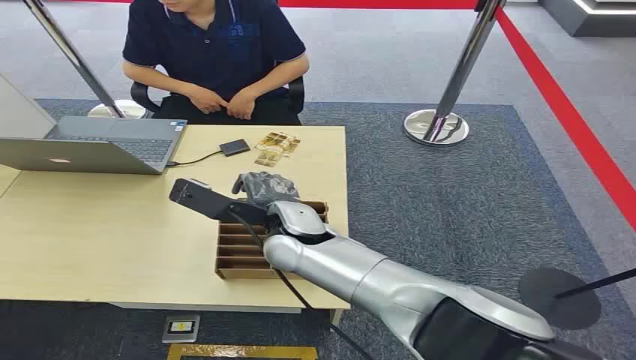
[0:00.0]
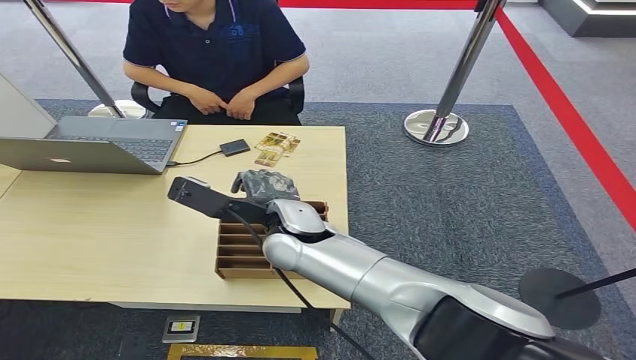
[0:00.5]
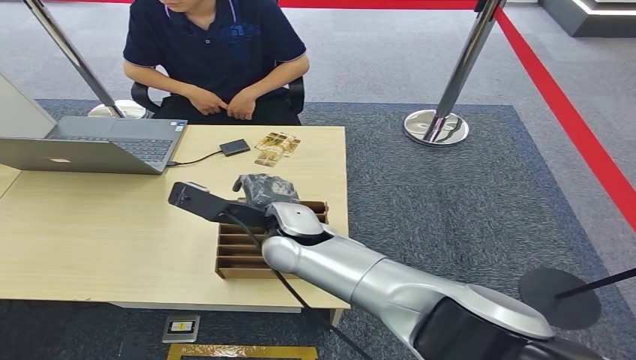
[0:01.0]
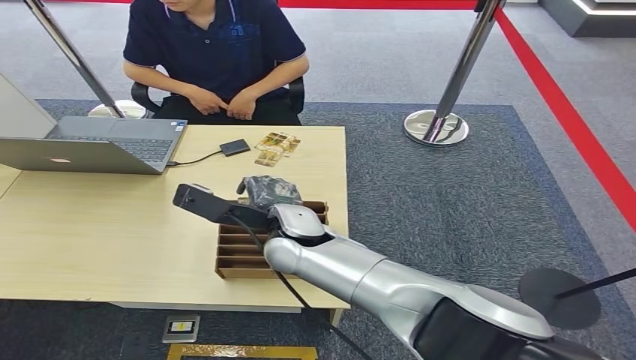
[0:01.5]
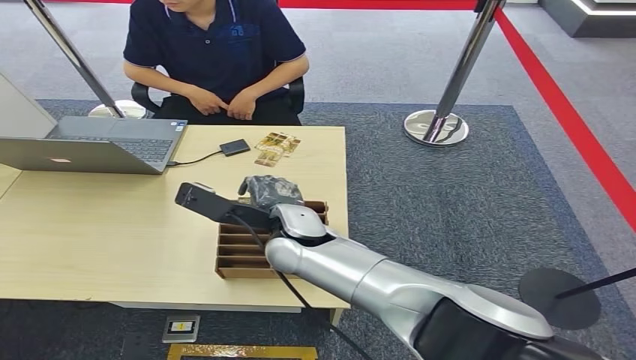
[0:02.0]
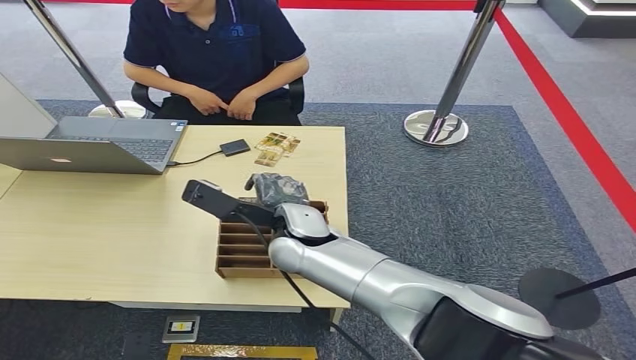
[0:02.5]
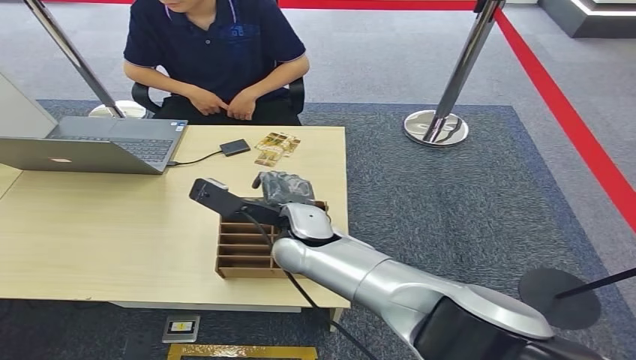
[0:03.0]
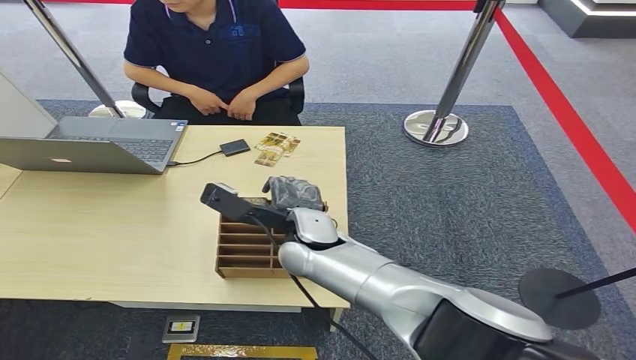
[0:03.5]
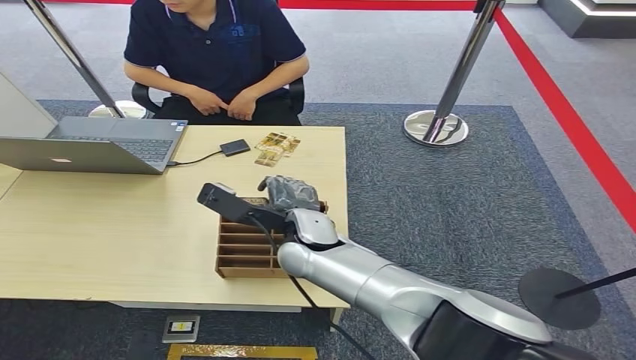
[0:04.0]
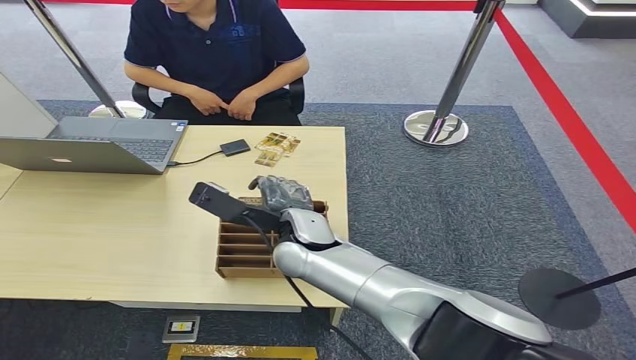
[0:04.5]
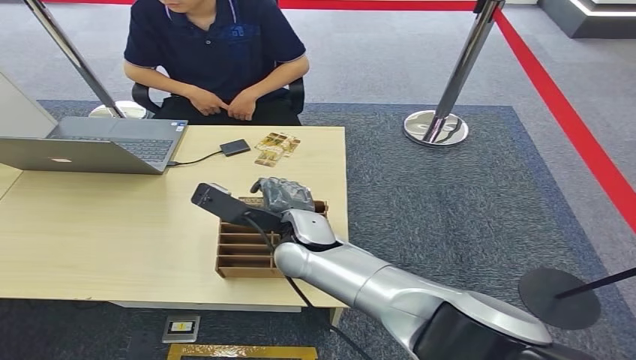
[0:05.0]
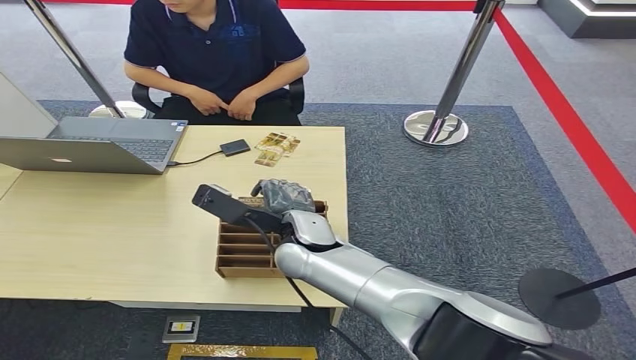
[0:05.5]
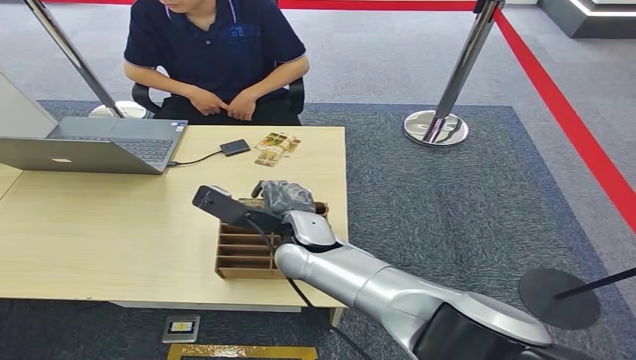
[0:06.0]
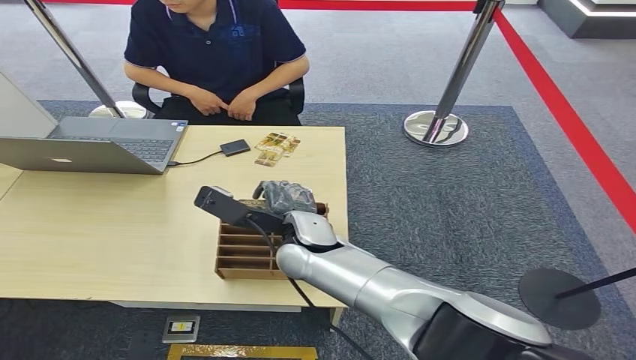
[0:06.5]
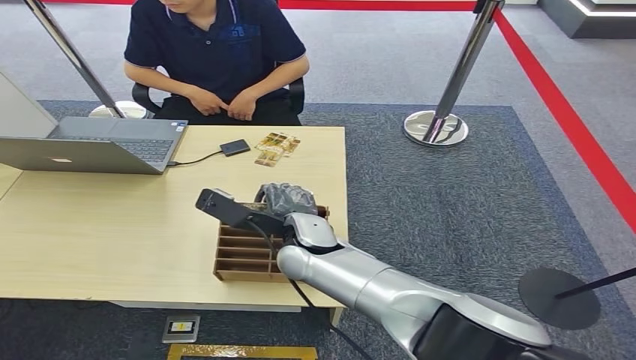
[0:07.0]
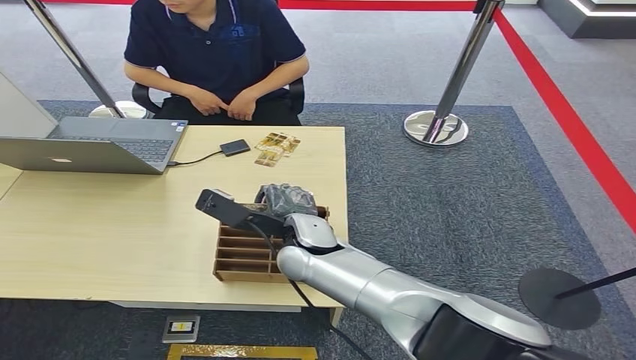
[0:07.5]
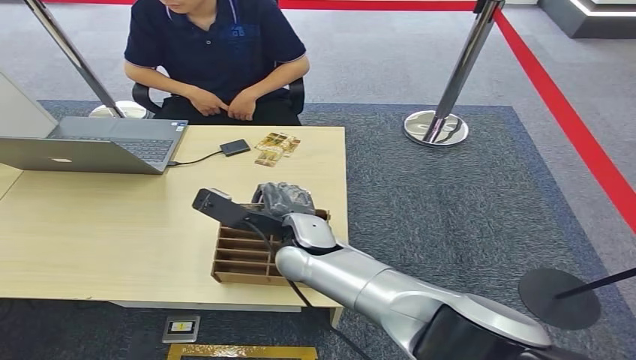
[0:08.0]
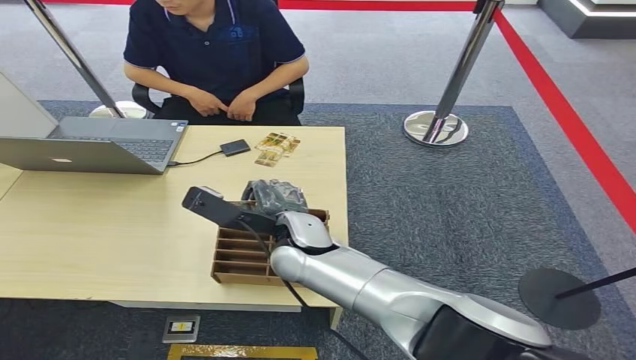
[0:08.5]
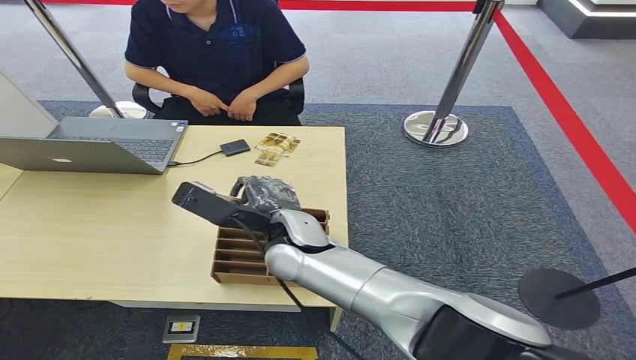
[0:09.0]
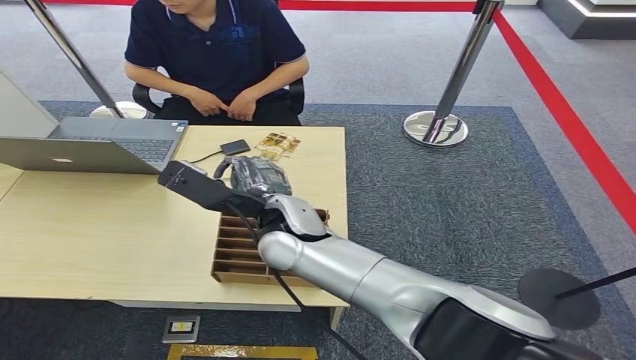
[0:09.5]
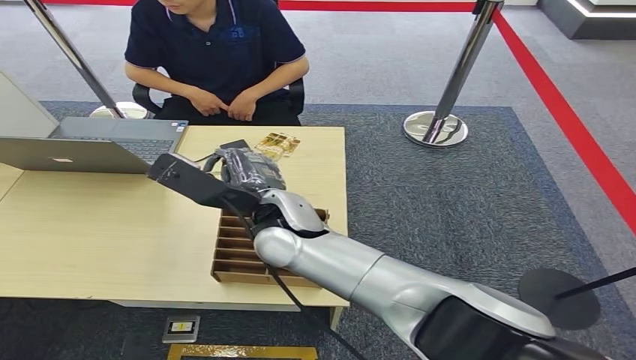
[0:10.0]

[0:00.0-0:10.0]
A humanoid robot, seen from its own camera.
Step, 0:00.0 to 0:09.0: Pick up the room card from the card holder.
Step, 0:09.5 to 0:10.0: Hand the room card to the target.
0:02.0 to 0:04.0: There are only small adjustments of the hands.
0:04.0 to 0:08.0: Both hands stay put.
0:08.0 to 0:10.0: The right hand is displaced upward by roughly 5 cm.
